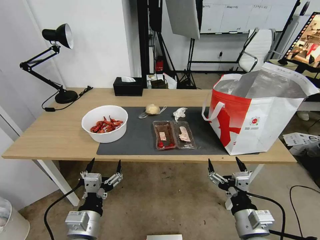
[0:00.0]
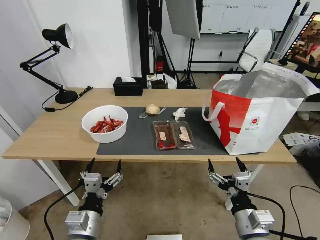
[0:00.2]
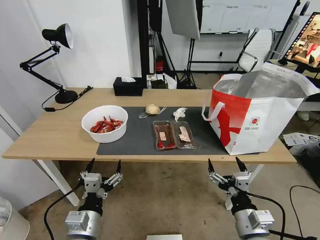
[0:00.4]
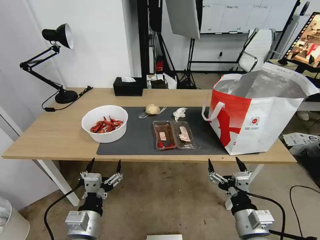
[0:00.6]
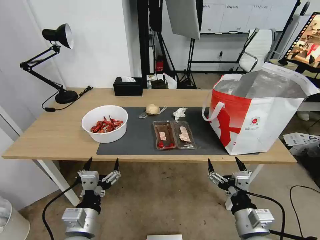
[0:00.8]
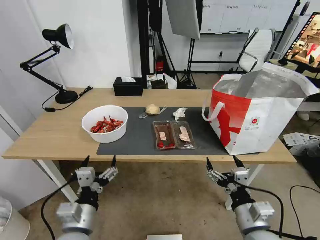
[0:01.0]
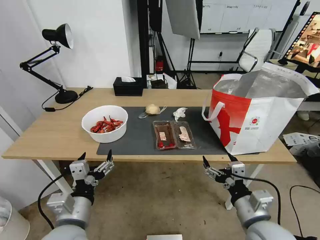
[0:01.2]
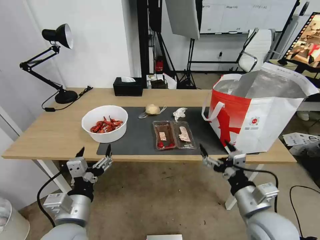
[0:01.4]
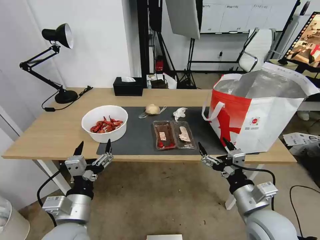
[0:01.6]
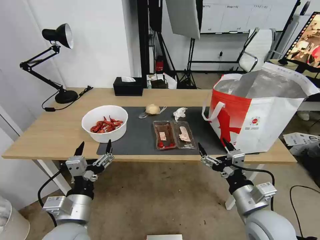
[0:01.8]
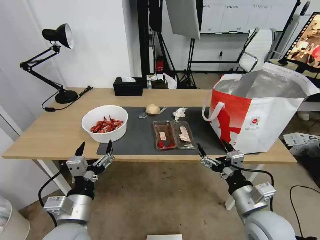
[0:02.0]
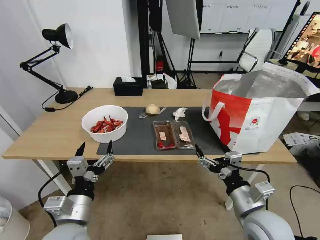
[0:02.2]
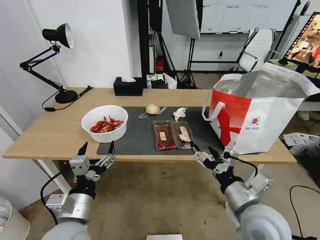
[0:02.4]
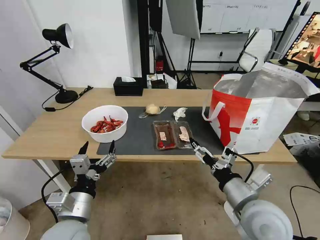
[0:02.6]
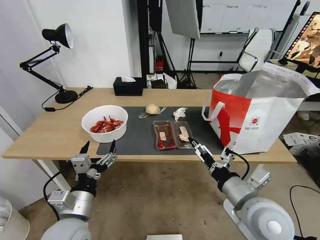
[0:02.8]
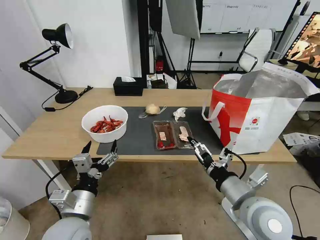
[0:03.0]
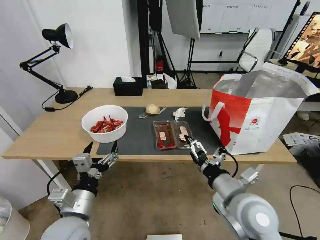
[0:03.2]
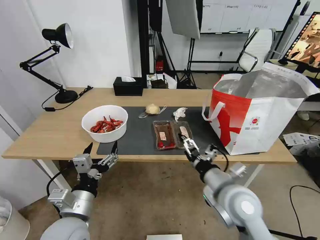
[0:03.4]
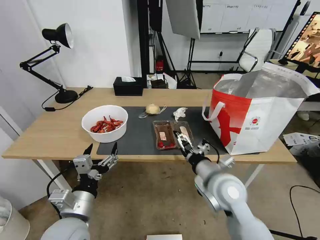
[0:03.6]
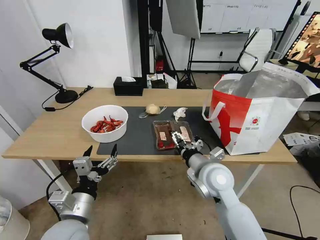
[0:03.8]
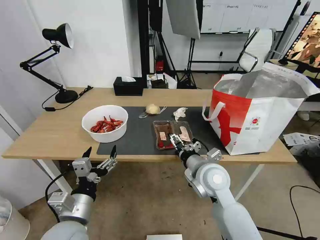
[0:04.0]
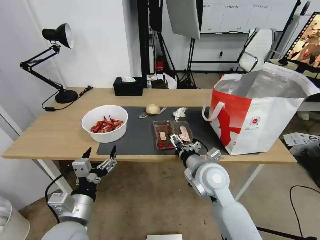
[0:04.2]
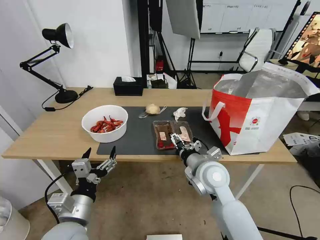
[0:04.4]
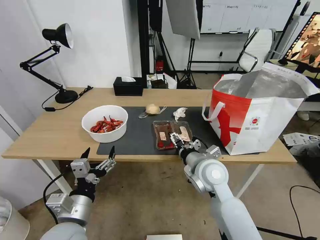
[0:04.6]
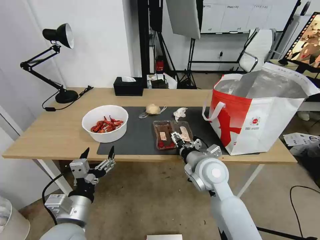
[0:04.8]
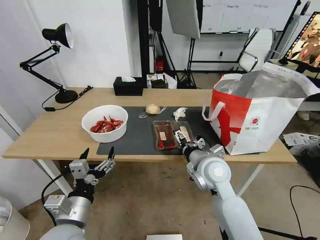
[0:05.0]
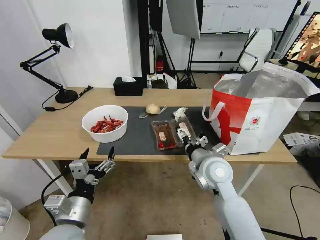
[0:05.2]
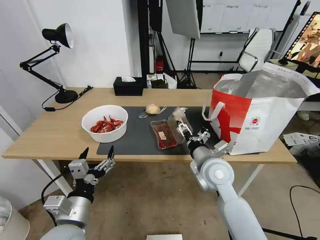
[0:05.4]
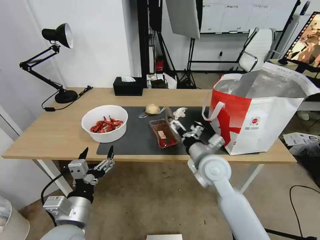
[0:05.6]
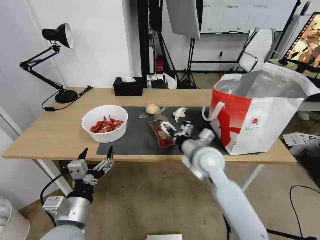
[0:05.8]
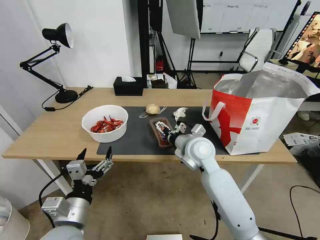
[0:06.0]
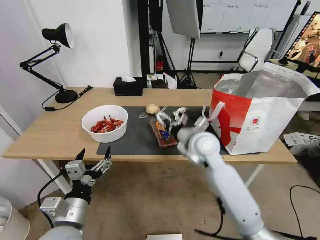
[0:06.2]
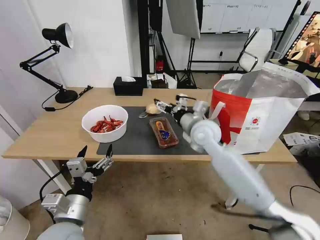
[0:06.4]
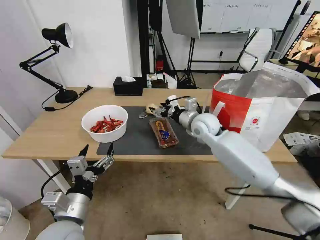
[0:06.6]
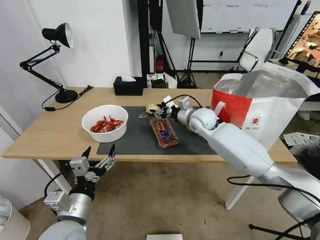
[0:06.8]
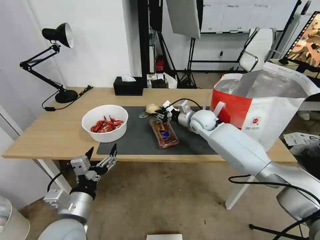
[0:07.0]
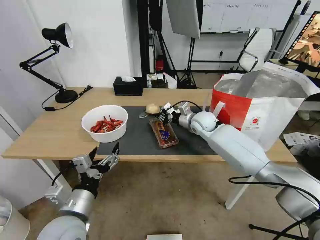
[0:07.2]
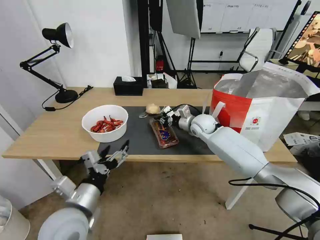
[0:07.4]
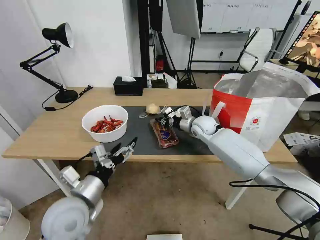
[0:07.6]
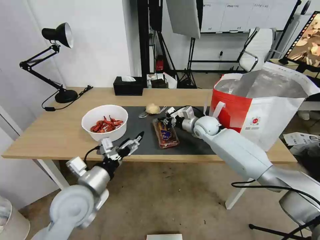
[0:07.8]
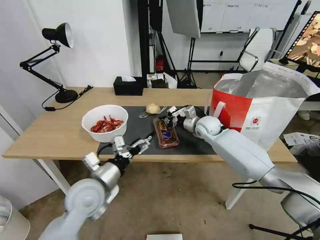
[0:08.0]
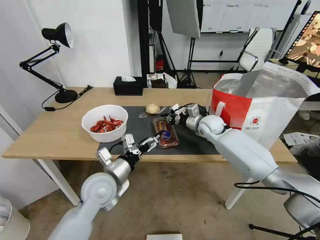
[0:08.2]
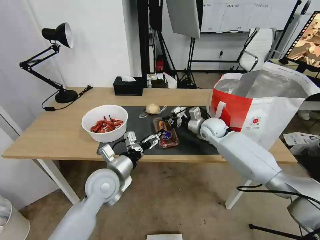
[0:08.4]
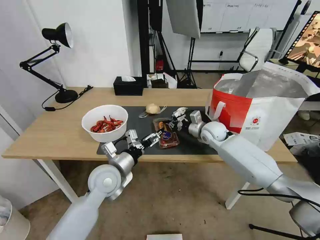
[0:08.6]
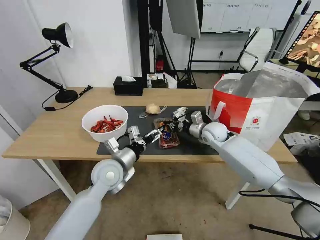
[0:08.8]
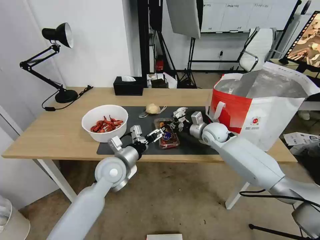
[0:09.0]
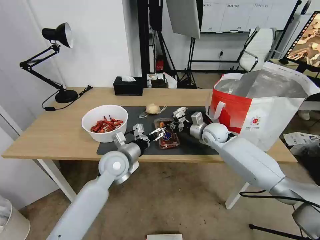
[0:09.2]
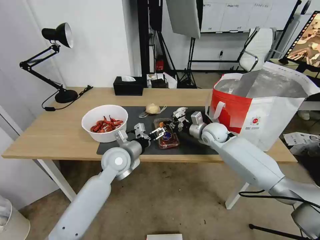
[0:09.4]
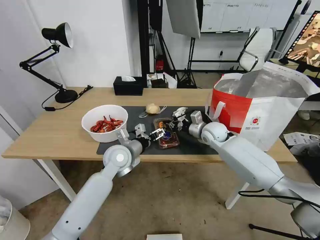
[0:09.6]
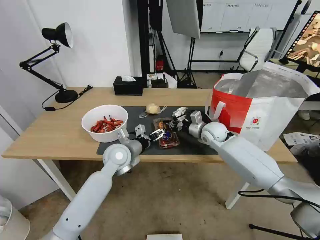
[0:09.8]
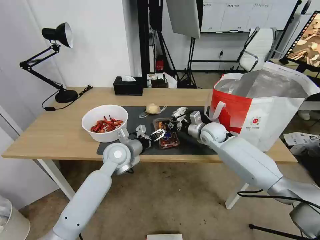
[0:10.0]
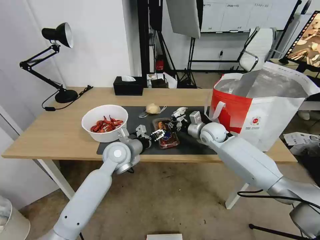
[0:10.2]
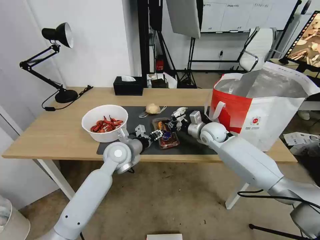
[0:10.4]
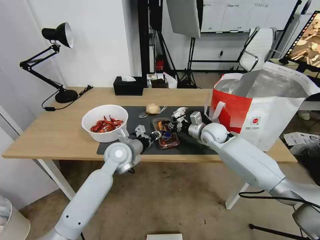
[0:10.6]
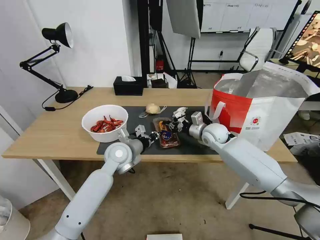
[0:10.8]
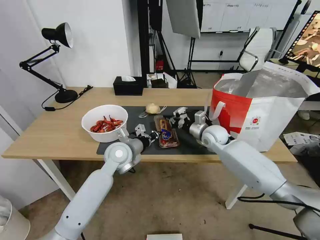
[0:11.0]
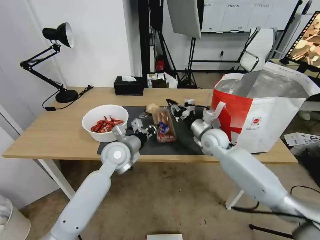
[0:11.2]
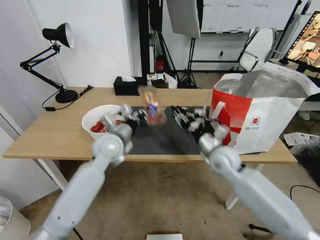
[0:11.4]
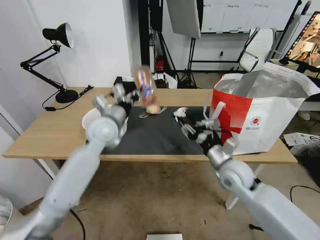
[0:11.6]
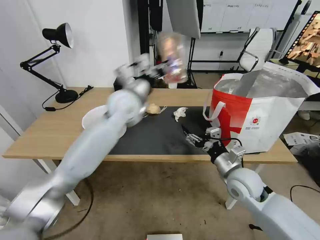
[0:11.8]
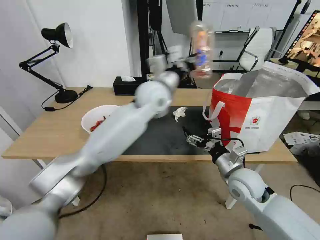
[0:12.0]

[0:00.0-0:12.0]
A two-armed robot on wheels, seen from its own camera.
Task of the whole recording: Pick up the trash from the table and place it into the takeout bag.
0:01.6 to 0:03.0: The right gripper ends up approximately 5 cm from where it was.
0:03.0 to 0:04.4: The right gripper shifts approximately 15 cm forward and to the left.
0:04.4 to 0:06.0: The right gripper is displaced forward by roughly 5 cm.
0:06.0 to 0:07.6: The right gripper heads forward, covering some 15 cm, and closes. The left gripper is displaced forward by roughly 5 cm.
0:07.6 to 0:09.0: The left gripper shifts approximately 15 cm forward and to the right. Meanwhile the right gripper changes place by approximately 5 cm.
0:09.0 to 0:10.4: The left gripper shifts about 5 cm forward, and closes.
0:10.4 to 0:12.0: The right gripper shifts approximately 20 cm backward, and opens. The left gripper is displaced upward, to the right and forward by about 25 cm, and closes its fingers.

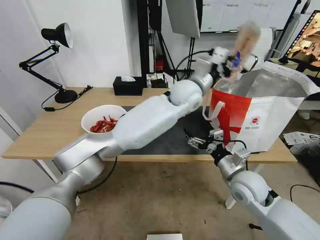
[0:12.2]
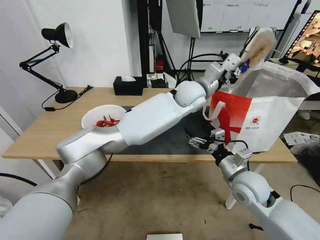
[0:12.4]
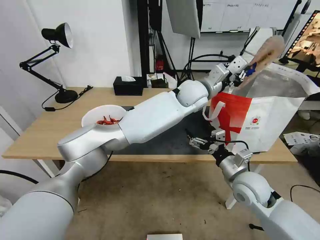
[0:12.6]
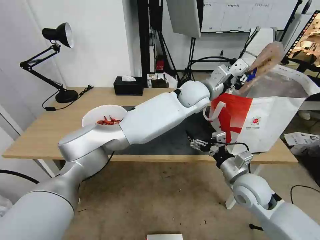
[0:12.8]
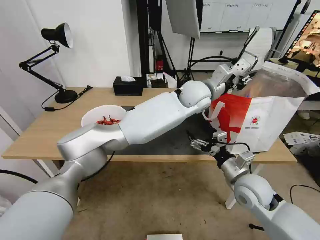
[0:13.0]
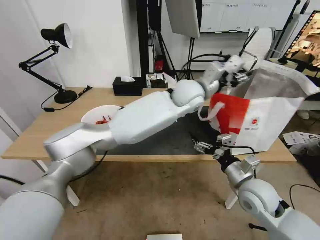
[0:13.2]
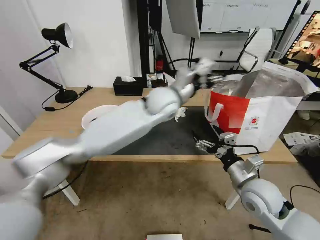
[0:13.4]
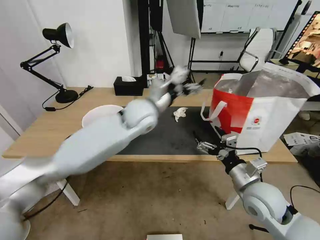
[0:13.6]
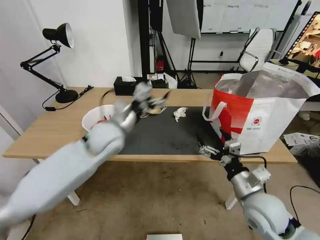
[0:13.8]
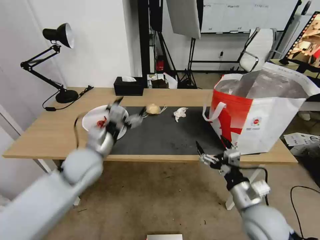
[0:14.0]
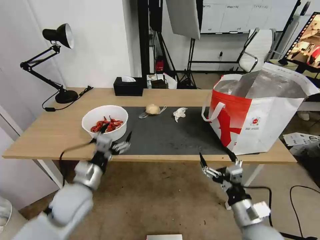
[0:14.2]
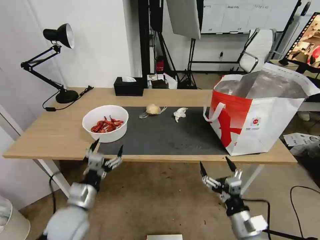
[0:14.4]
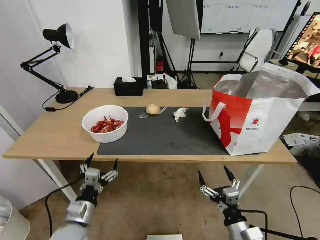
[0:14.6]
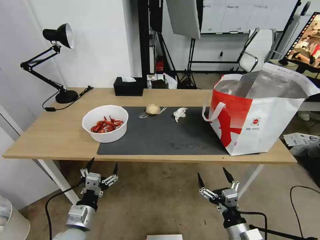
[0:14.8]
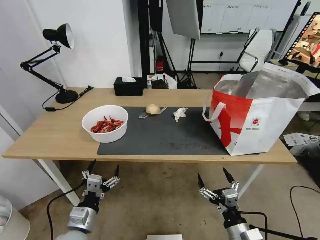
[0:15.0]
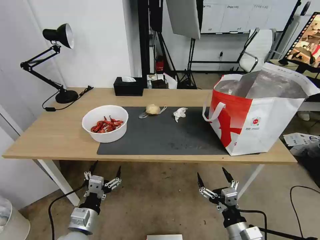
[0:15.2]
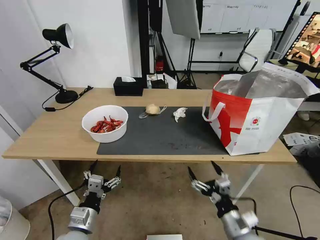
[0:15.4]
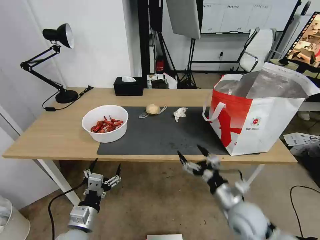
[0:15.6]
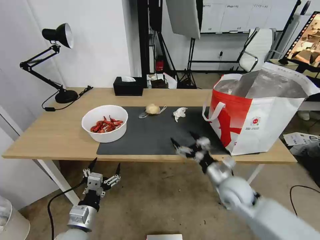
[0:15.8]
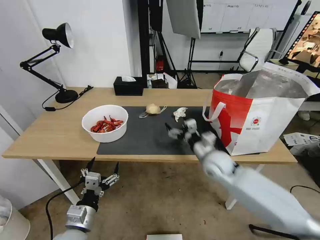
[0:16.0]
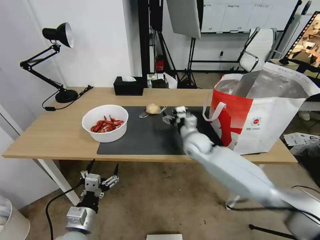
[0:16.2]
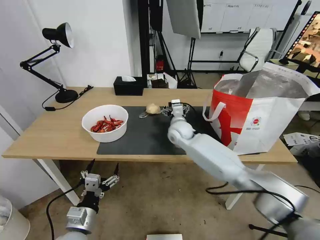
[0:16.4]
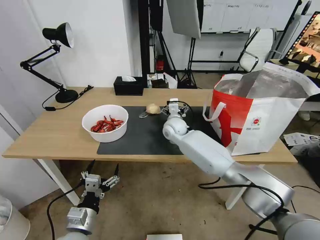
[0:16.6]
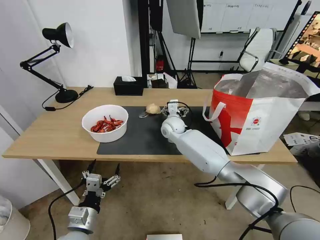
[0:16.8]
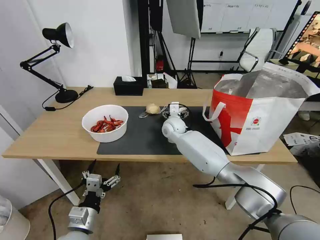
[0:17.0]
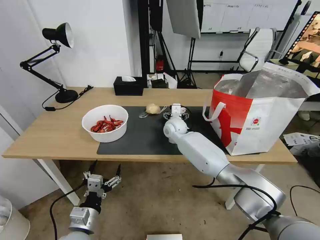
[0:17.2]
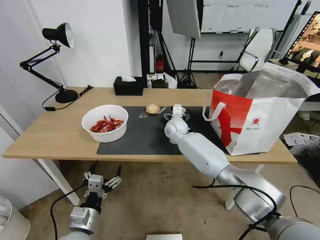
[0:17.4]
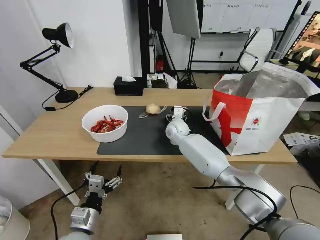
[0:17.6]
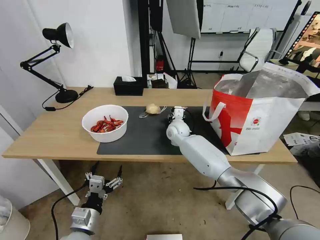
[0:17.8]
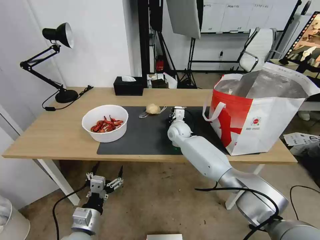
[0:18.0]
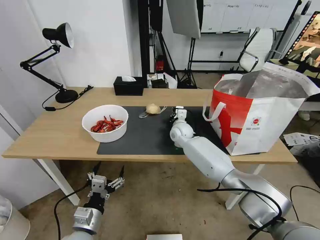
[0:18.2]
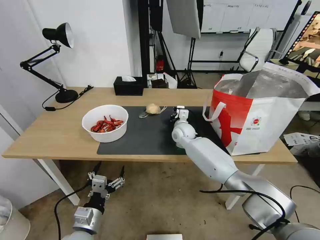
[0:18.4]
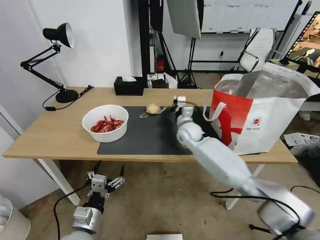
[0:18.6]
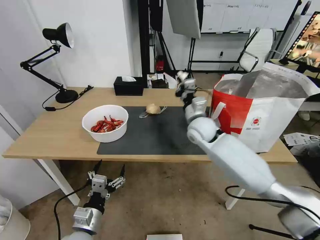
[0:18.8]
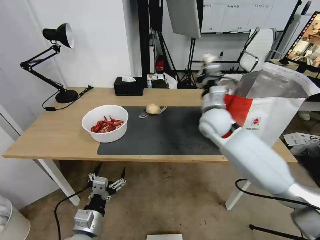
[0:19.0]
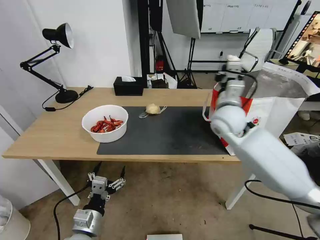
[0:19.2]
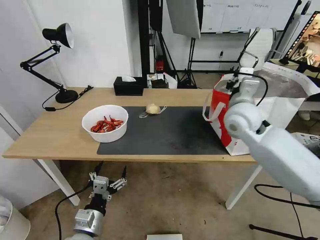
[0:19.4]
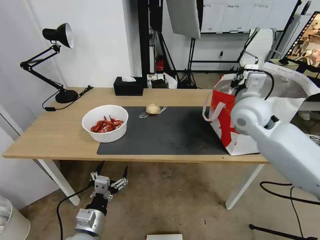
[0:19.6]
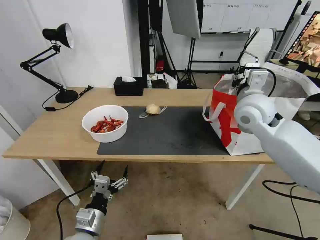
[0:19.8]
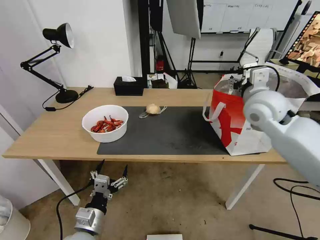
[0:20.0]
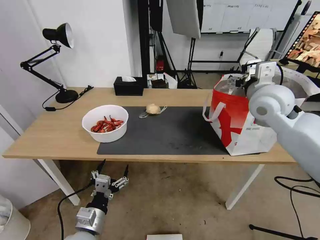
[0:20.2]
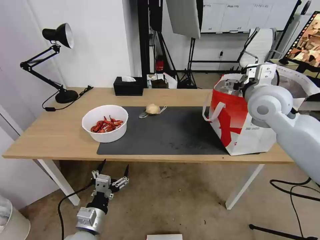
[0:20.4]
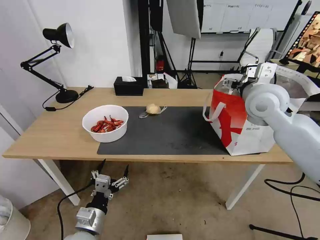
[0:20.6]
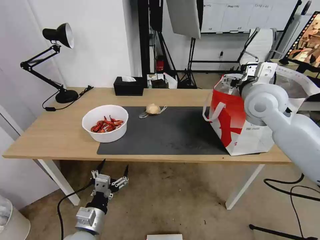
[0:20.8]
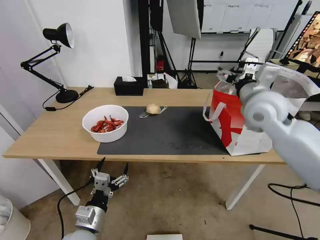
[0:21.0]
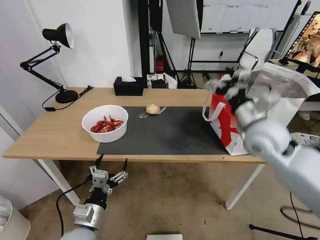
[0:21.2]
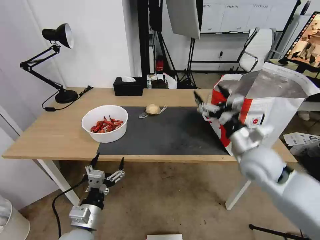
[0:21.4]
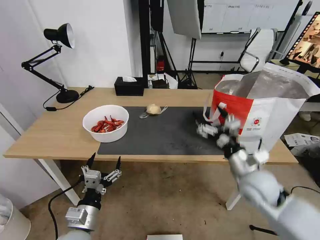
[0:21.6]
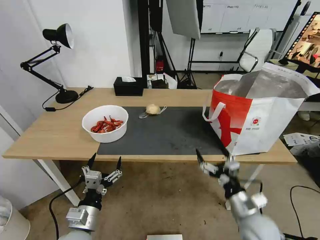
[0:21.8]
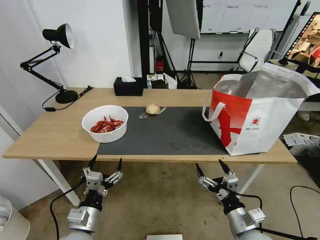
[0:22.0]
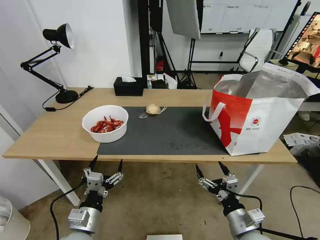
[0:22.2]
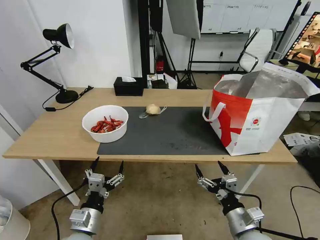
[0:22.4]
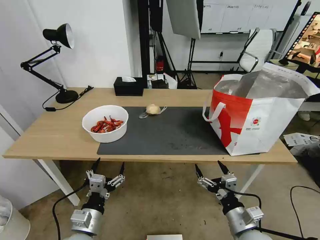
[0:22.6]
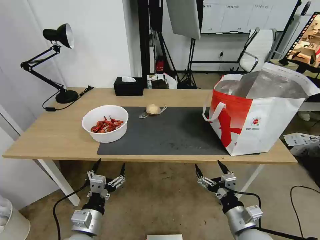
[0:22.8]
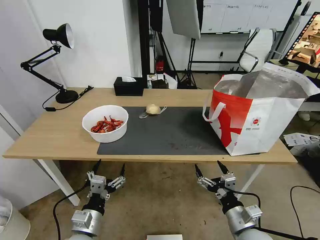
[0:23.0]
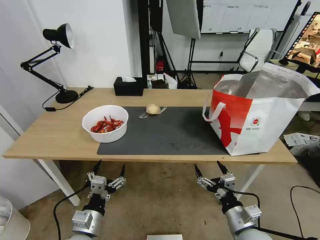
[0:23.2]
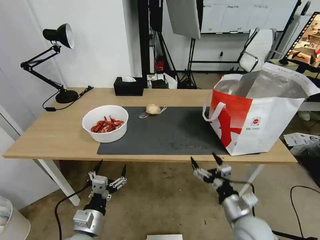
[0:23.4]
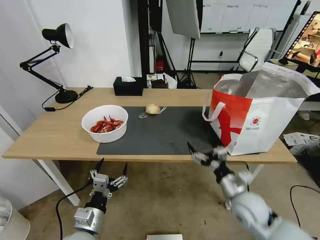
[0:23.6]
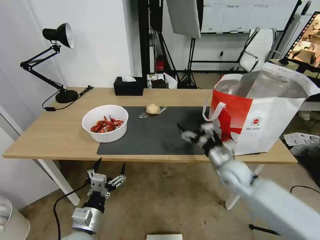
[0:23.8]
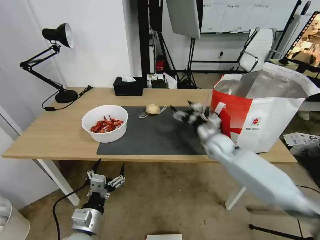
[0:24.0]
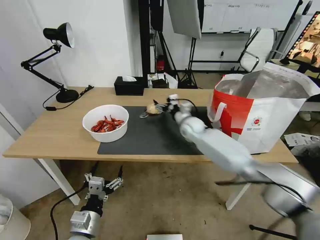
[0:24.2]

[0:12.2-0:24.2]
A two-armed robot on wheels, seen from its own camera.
Task of the whole recording: Pick up the trash from the table and place it into the takeout bag.
0:12.2 to 0:13.8: The right gripper shifts approximately 5 cm backward. The left gripper is displaced to the left and backward by about 25 cm, and opens.
0:13.8 to 0:15.2: The right gripper is displaced backward and downward by some 15 cm. The left gripper moves backward and downward, some 30 cm.
0:15.2 to 0:16.6: The right gripper moves forward and to the left, about 50 cm.
0:16.6 to 0:18.2: The right gripper ends up about 5 cm from where it was, and closes.
0:18.2 to 0:19.8: The right gripper moves upward, to the right and backward, approximately 30 cm, and opens.
0:19.8 to 0:21.2: The right gripper goes some 5 cm backward, and opens its fingers.
0:21.2 to 0:22.6: The right gripper moves downward and backward, some 30 cm.
0:22.6 to 0:24.2: The right gripper is displaced forward by roughly 40 cm.
